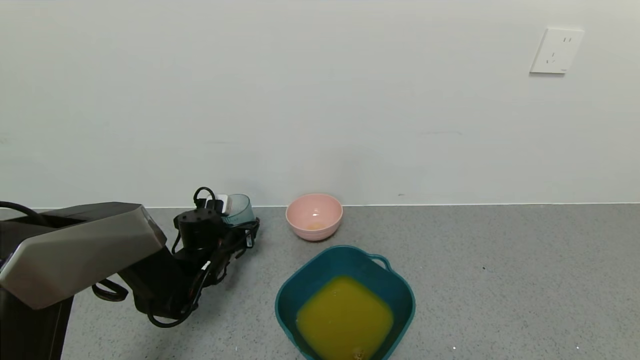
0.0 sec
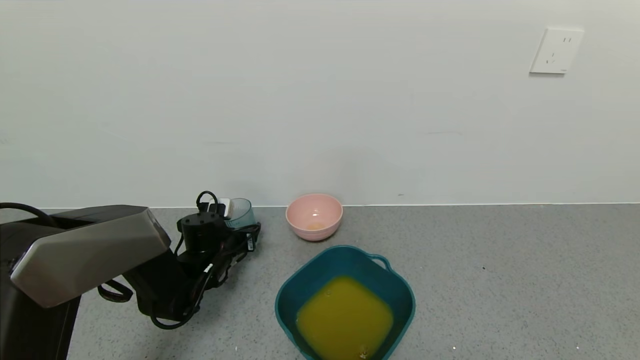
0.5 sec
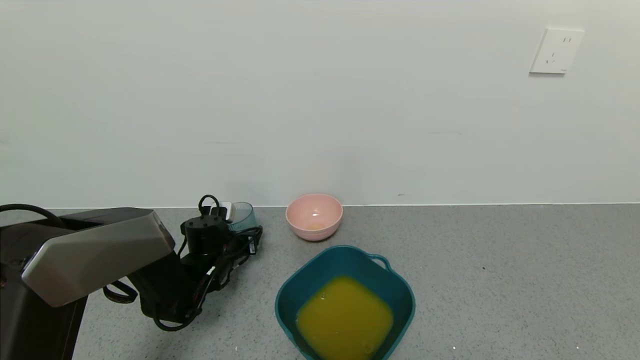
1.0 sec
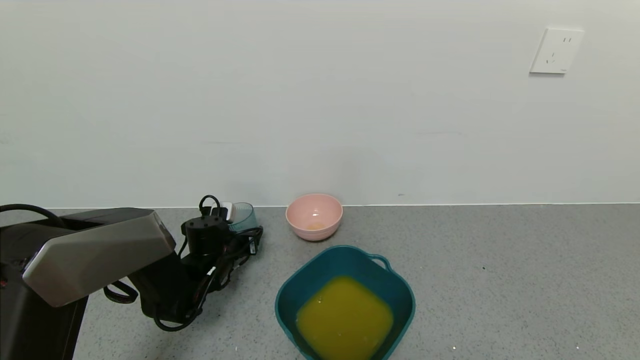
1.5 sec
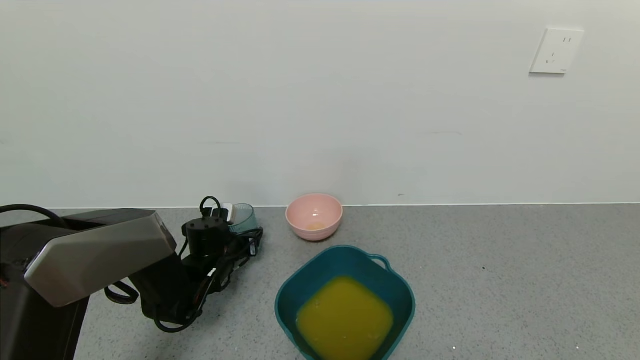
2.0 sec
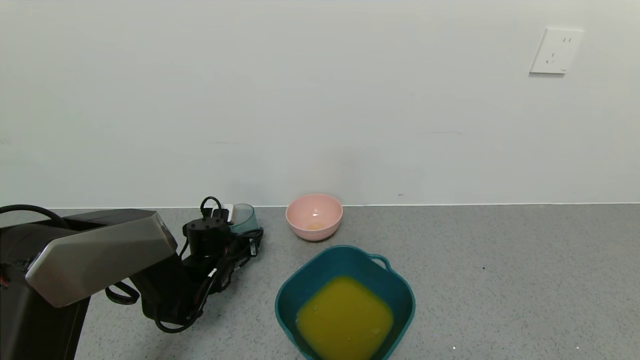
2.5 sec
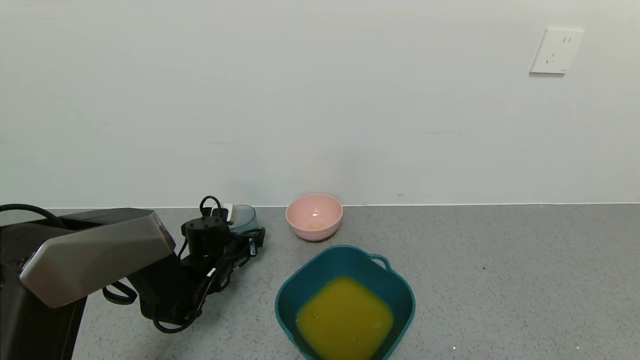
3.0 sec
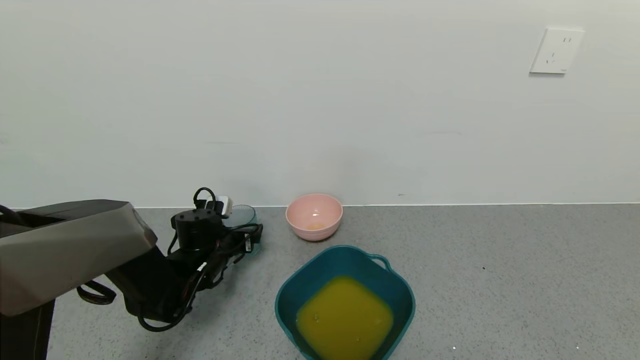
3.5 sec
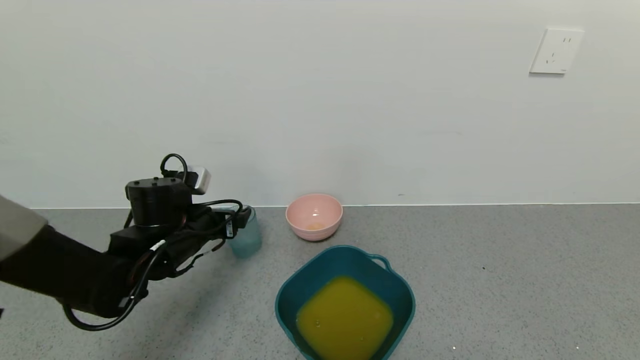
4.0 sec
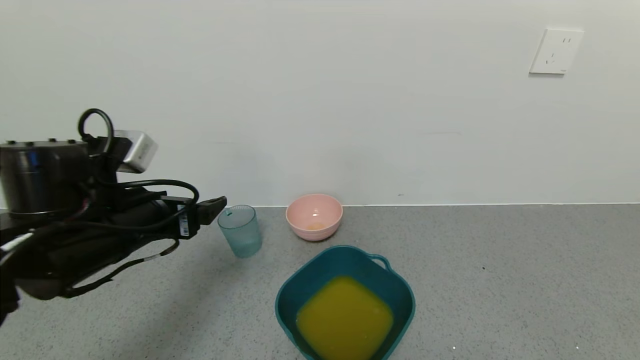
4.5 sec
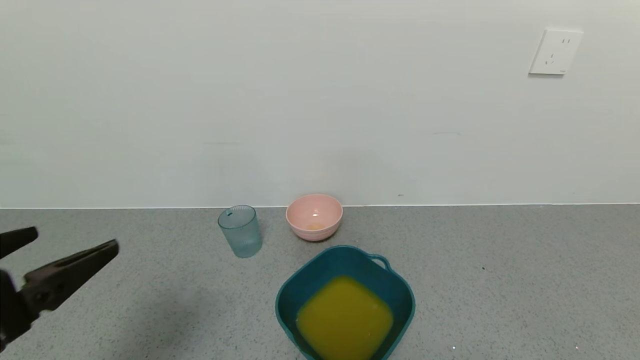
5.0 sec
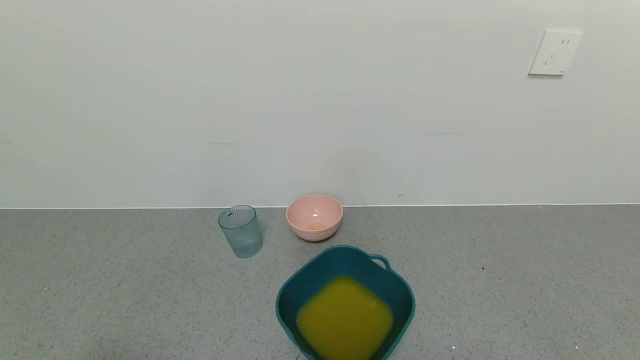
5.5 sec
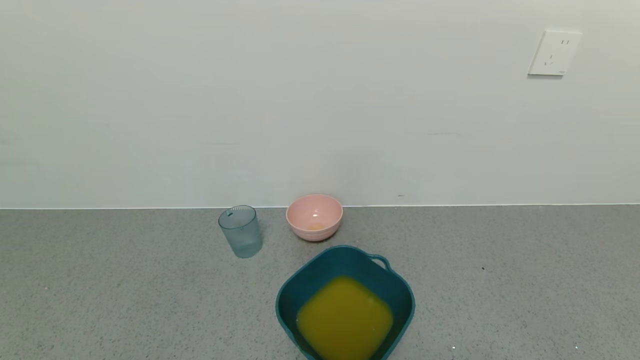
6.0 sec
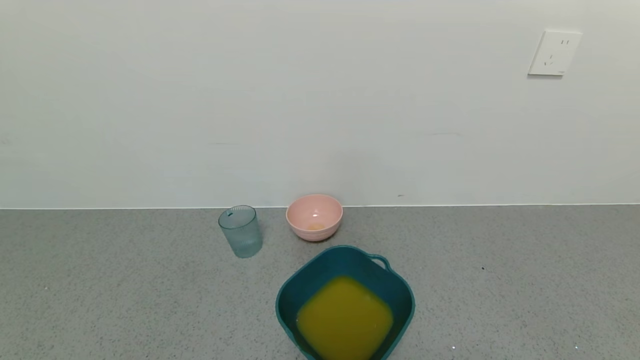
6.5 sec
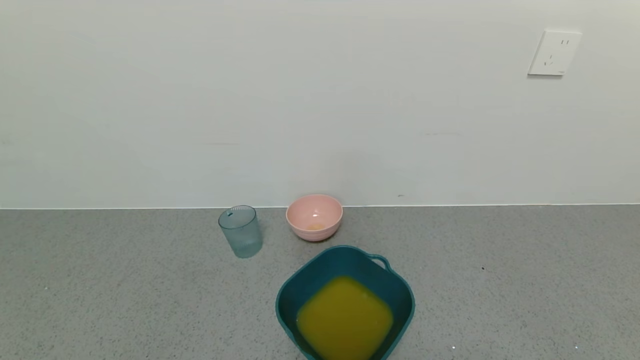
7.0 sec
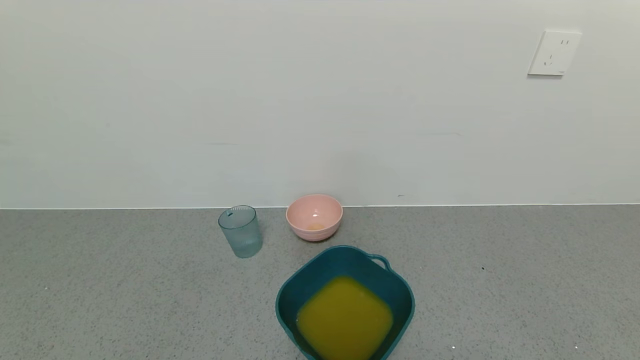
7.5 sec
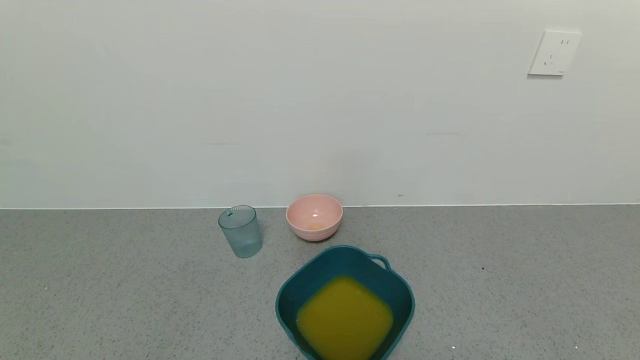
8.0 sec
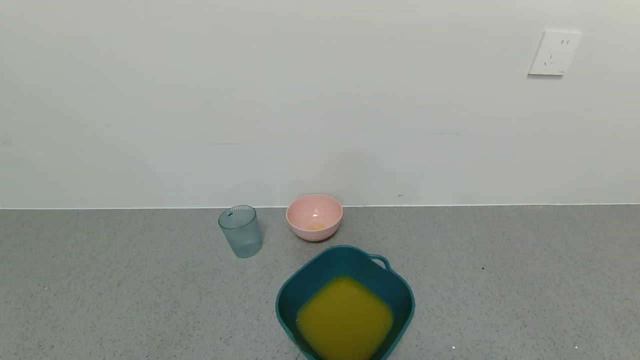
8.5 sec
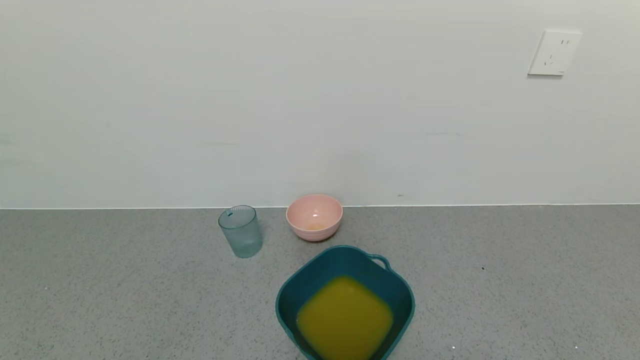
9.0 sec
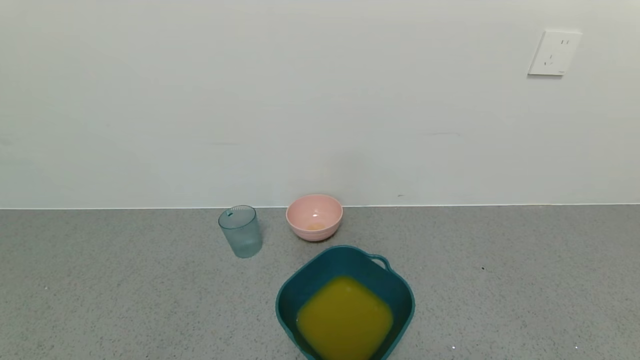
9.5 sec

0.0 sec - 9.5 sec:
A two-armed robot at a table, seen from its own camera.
Task of the whole recording: use a gripper to pick up the cup and pour the liquid into a bowl or tray.
Step, 0.0 sec - 2.0 sec: Place blue cup with orange juice on the table with left gripper.
0.0 sec - 2.0 sec: There are only small adjustments of the grippers.
2.0 sec - 4.0 sec: The left gripper shifts about 15 cm upward and backward, and opens.
4.0 sec - 5.5 sec: The left gripper shifts roughly 35 cm backward.
